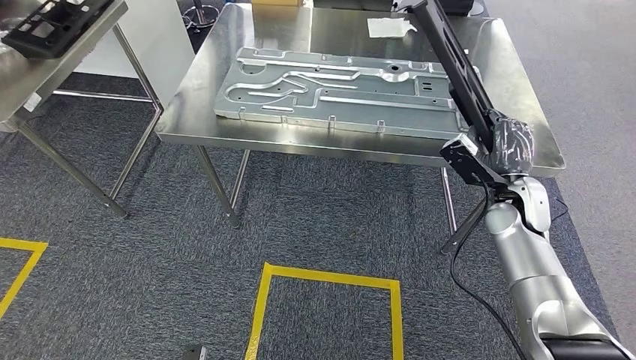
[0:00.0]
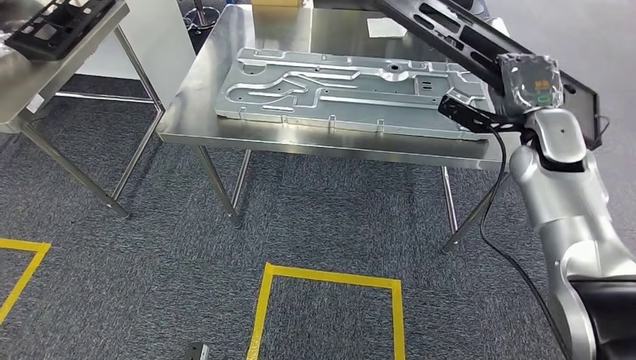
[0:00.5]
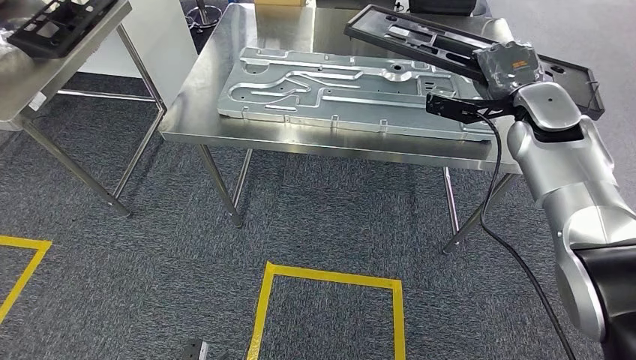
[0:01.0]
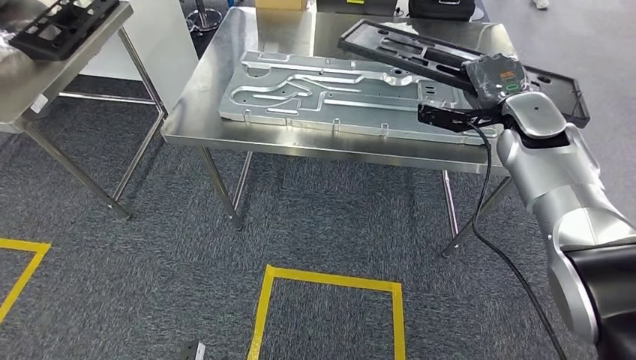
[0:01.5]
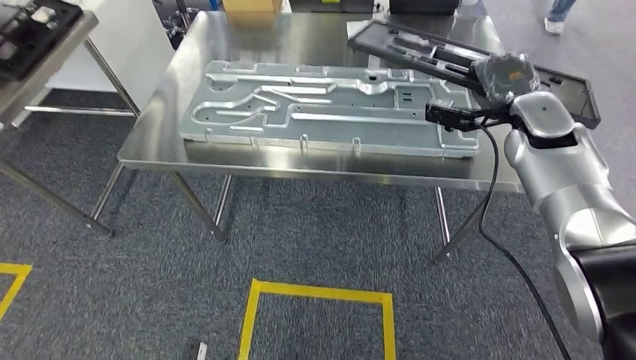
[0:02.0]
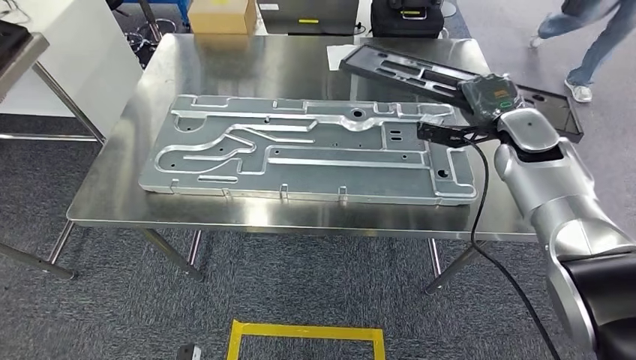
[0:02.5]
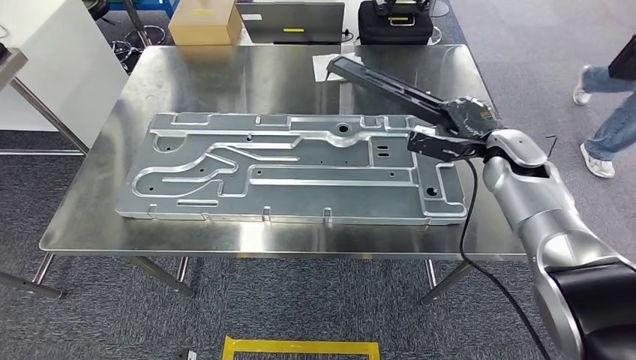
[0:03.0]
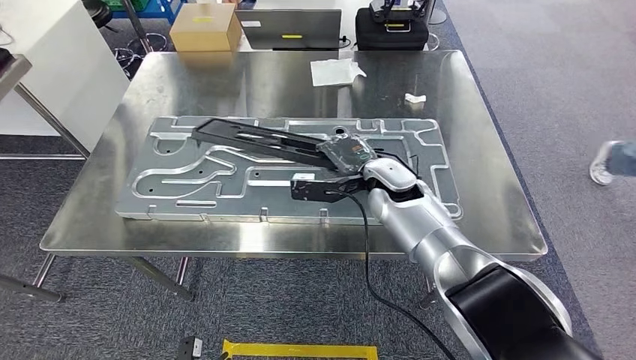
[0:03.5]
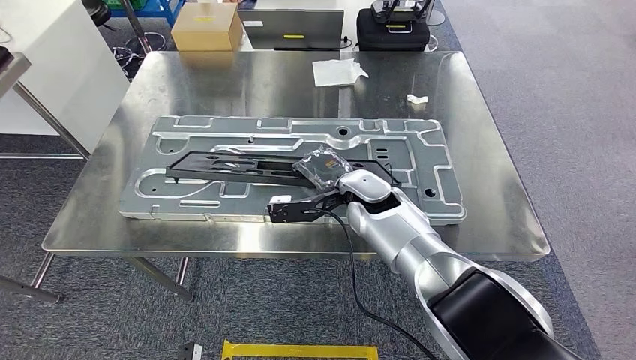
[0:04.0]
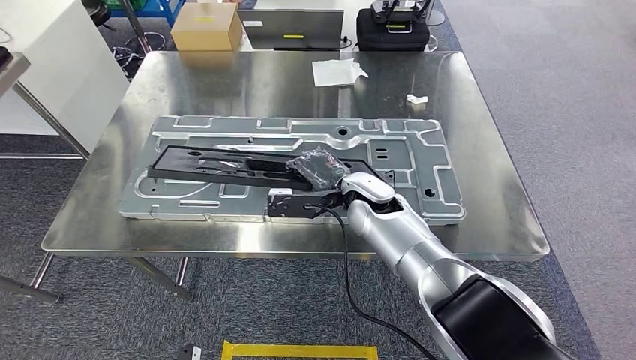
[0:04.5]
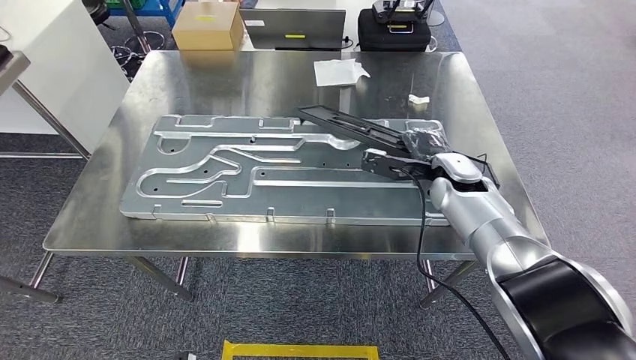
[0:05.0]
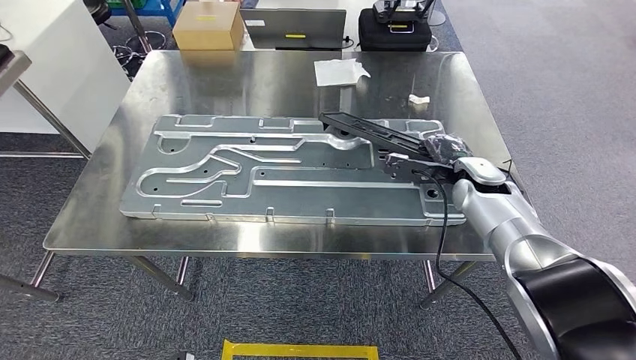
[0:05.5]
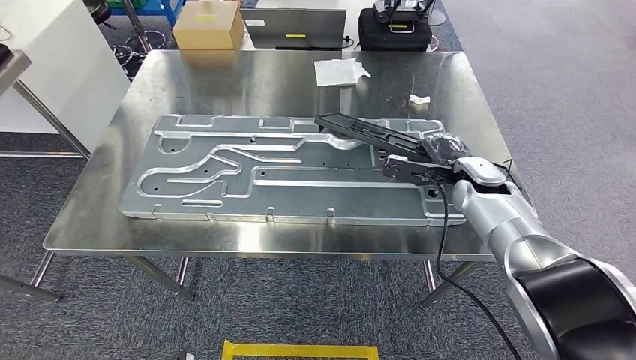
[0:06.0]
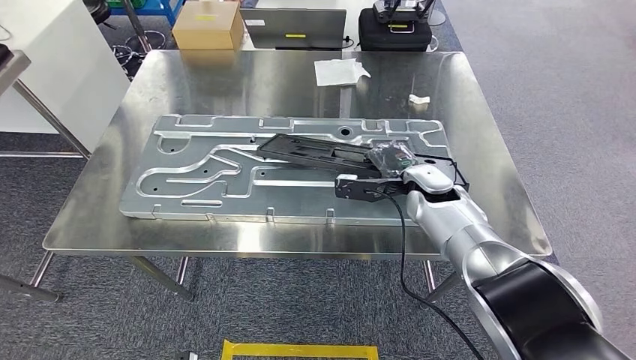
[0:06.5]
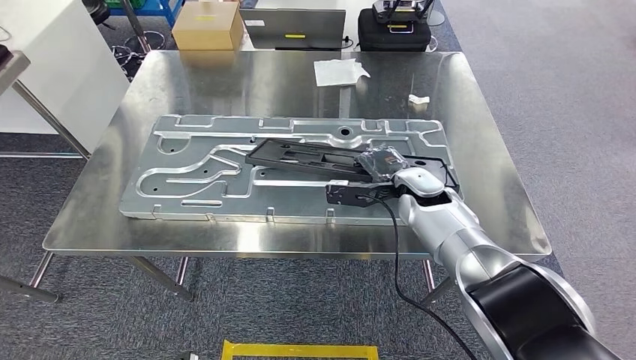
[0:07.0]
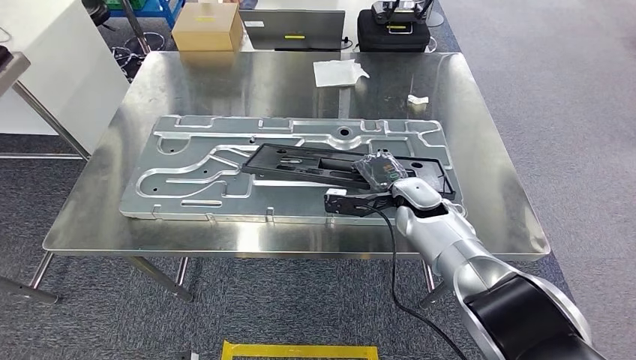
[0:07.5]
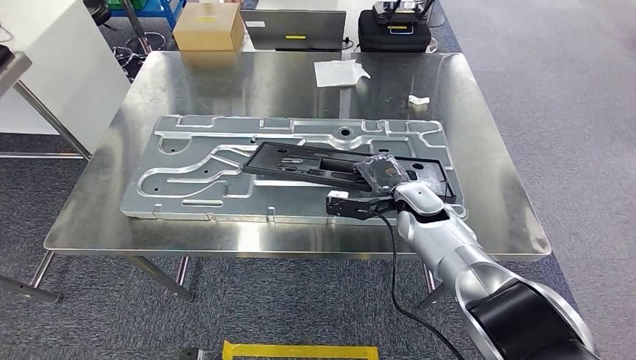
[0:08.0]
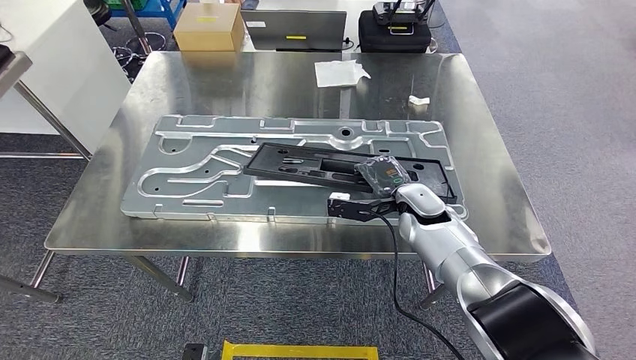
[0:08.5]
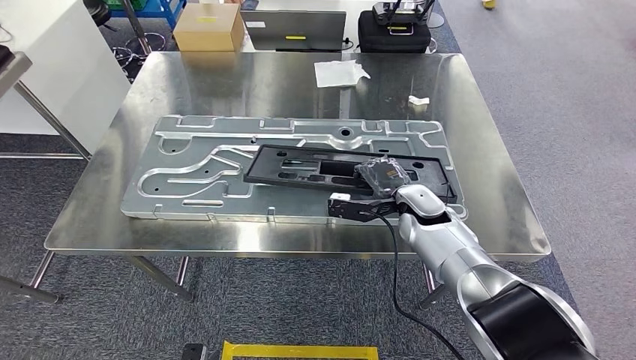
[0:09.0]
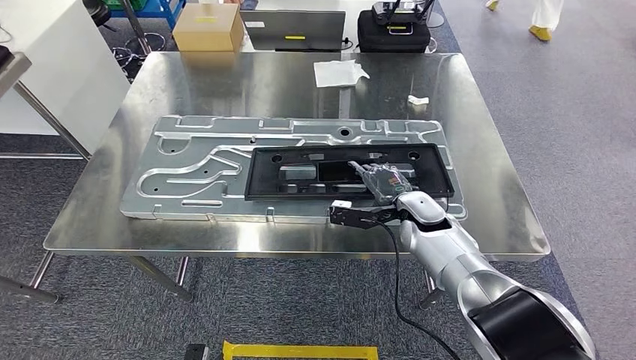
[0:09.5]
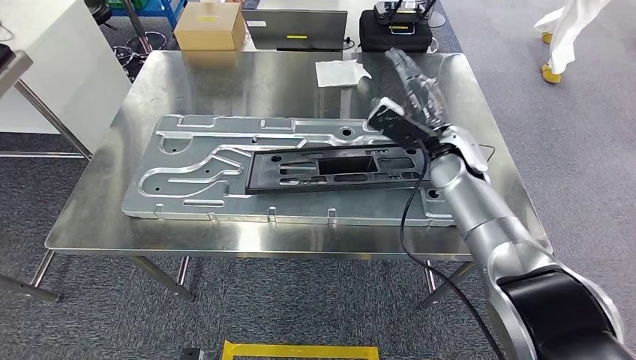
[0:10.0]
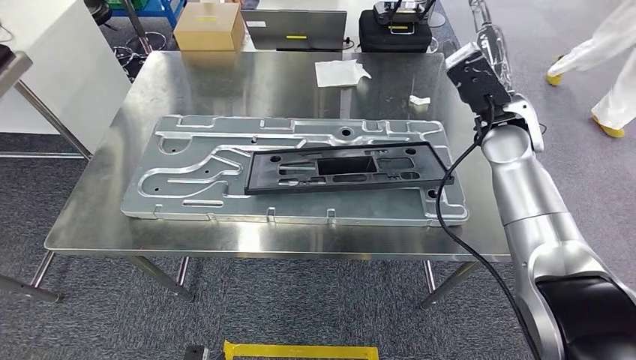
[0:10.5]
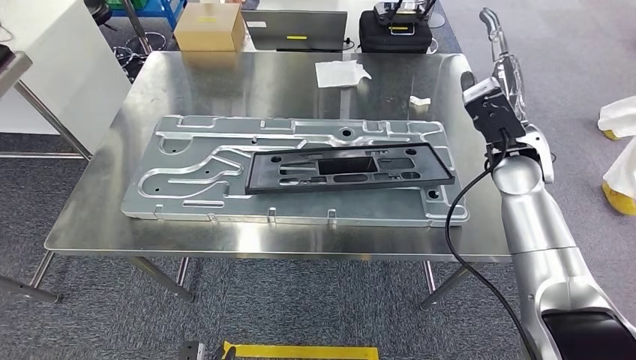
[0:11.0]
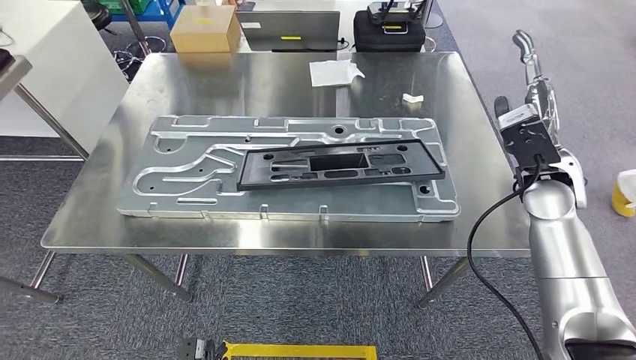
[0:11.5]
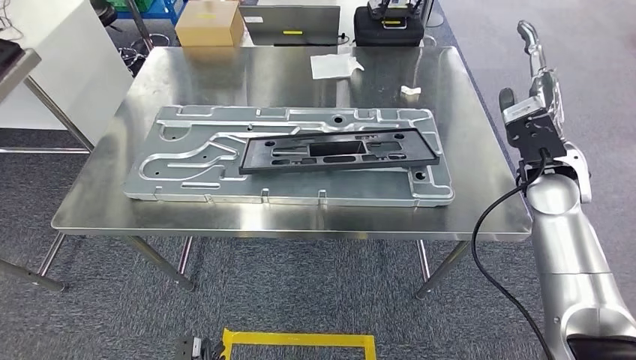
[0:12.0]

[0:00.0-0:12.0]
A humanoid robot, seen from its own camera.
Step, 0:00.0 to 0:10.5: Insert the large parts into the corresponding slots on the workbench.
0:06.0 to 0:08.0: The right hand heads to the left, covering about 10 cm.
0:08.0 to 0:10.0: The right hand is displaced upward by roughly 10 cm.

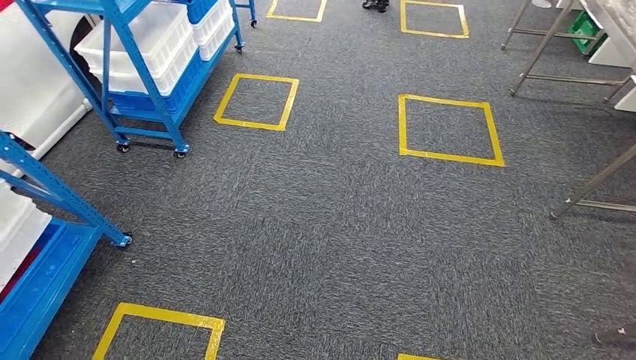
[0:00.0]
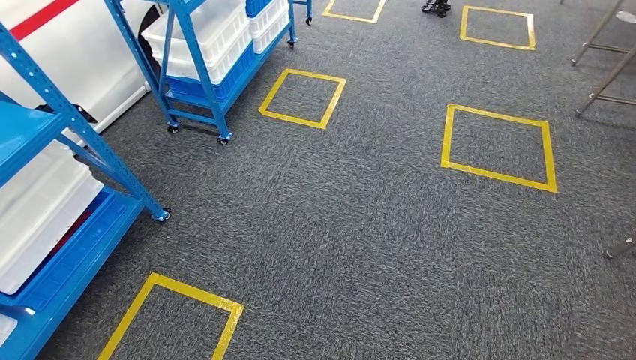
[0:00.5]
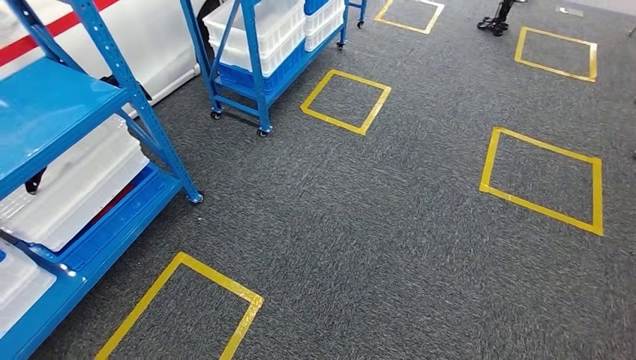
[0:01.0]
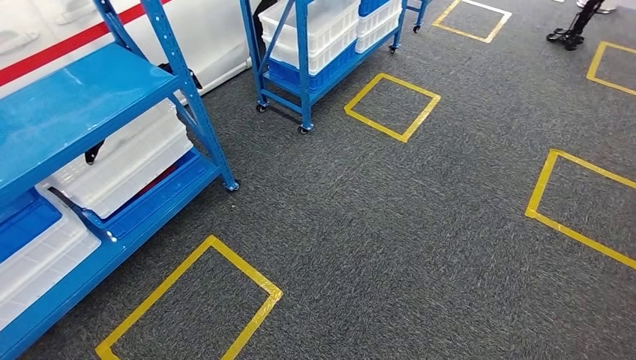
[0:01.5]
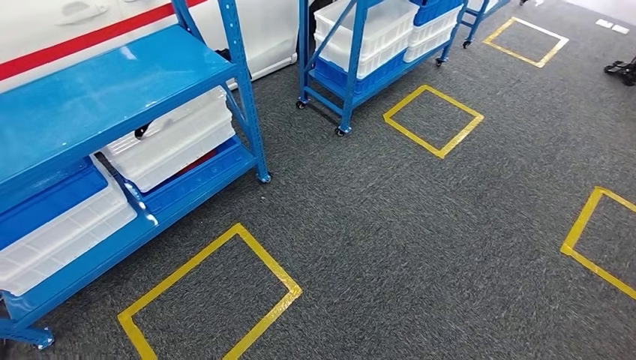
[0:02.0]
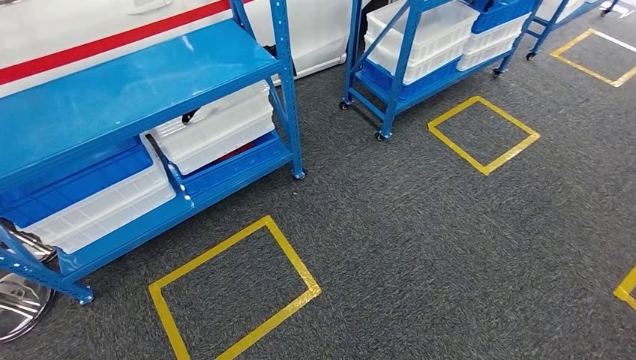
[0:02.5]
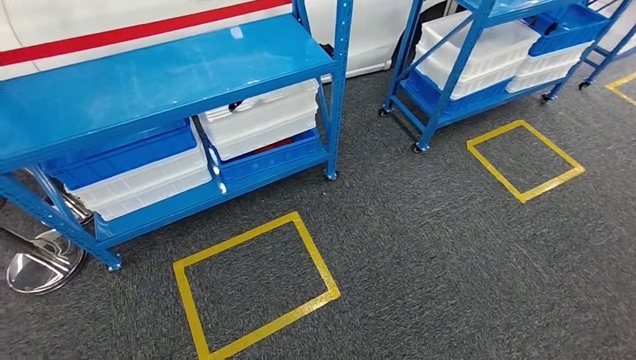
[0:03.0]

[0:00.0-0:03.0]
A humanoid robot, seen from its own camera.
Step, 0:00.0 to 0:02.5: Return to the initial position at the shelf.
